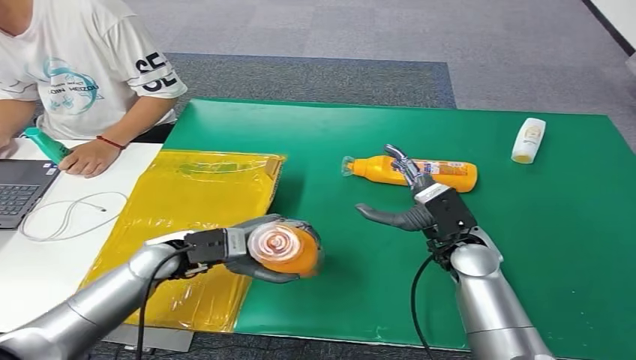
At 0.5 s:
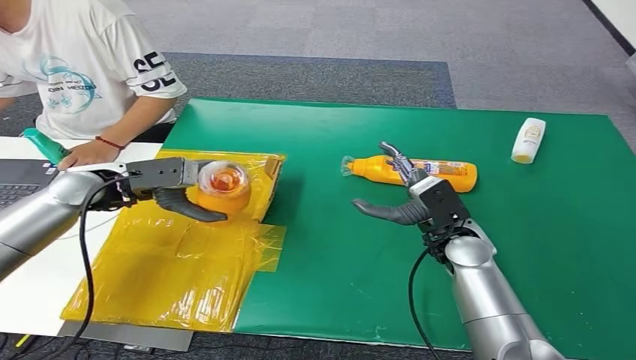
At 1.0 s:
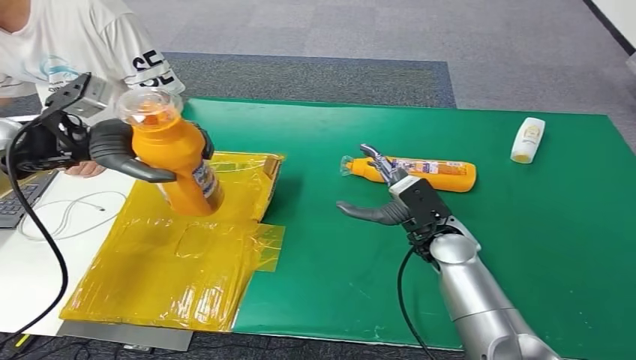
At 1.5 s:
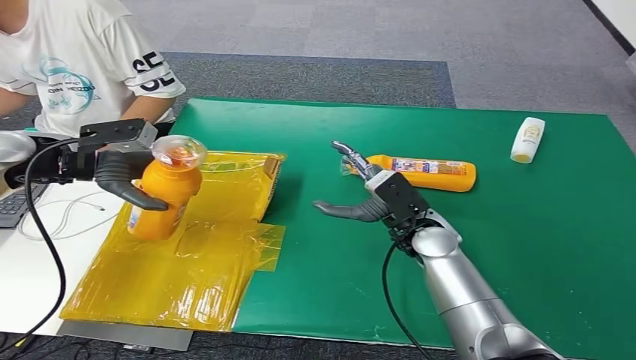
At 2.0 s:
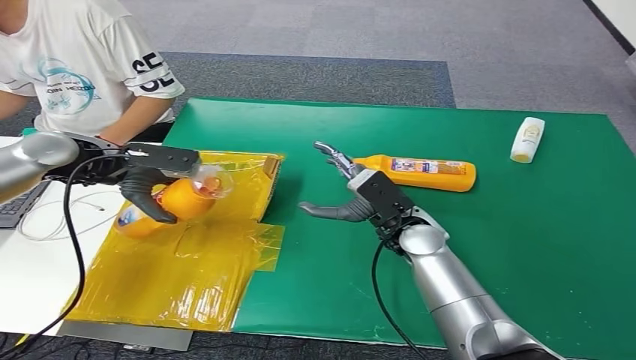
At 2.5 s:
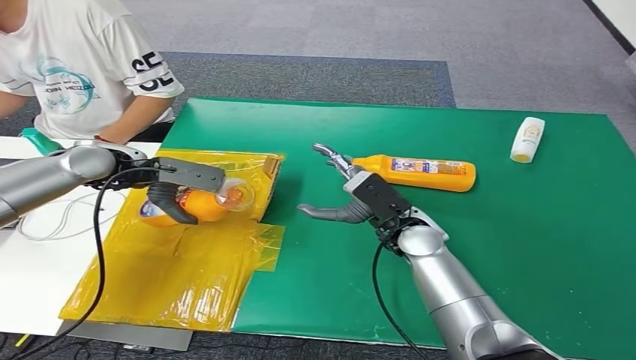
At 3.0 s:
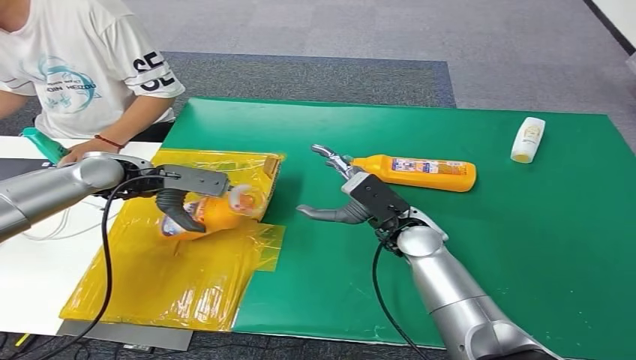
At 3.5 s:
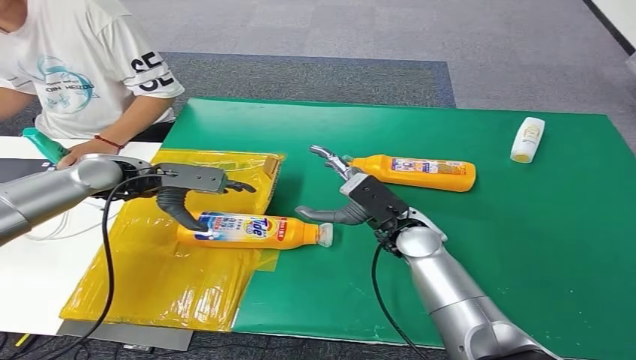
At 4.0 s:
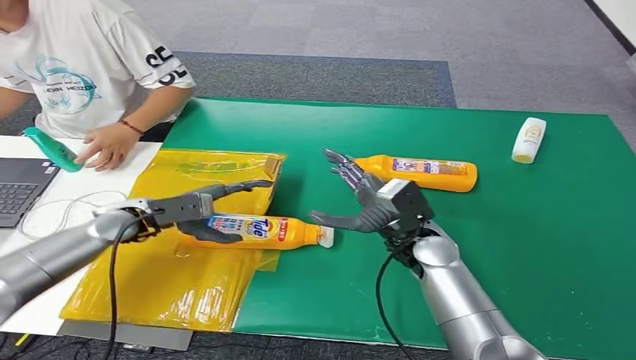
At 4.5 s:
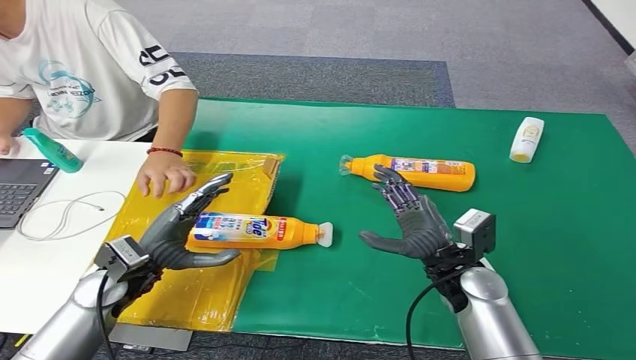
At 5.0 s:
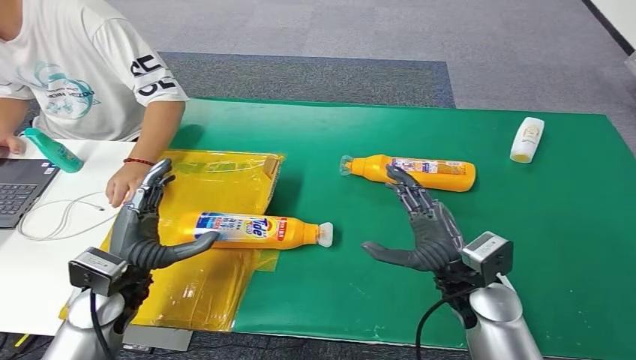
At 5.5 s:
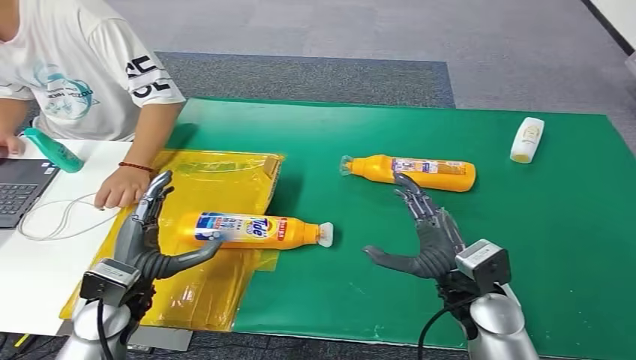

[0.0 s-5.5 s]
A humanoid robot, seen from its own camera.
Step, 0.0 to 5.0 s: Turn the bottle to the front side.
2.0 to 3.5 s: The left hand goes some 5 cm downward.
